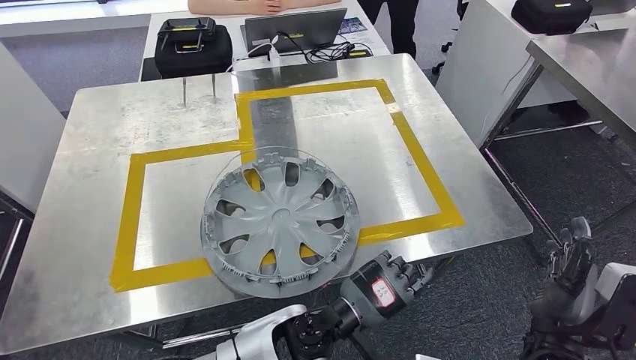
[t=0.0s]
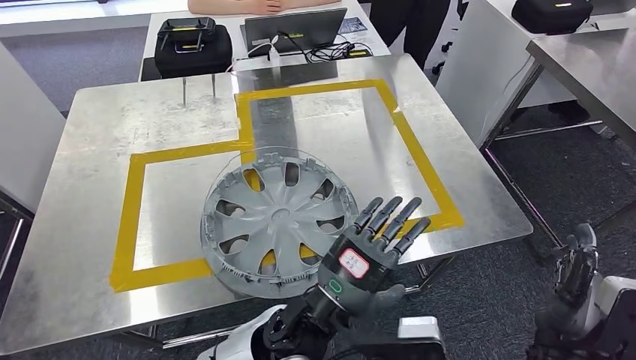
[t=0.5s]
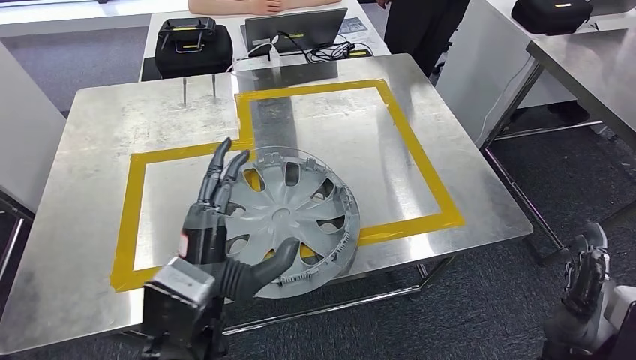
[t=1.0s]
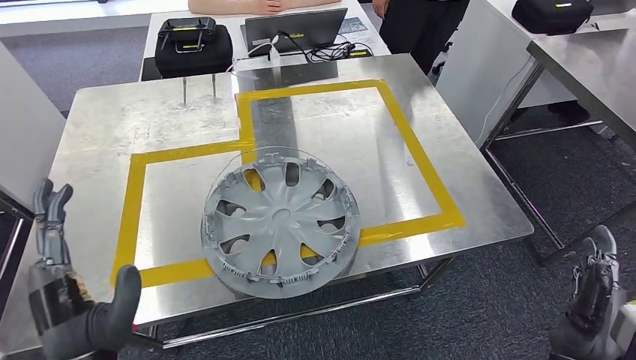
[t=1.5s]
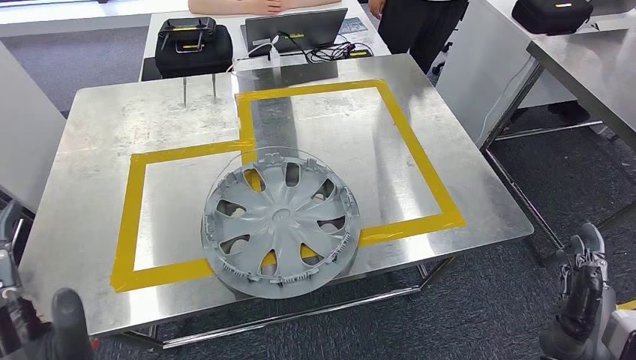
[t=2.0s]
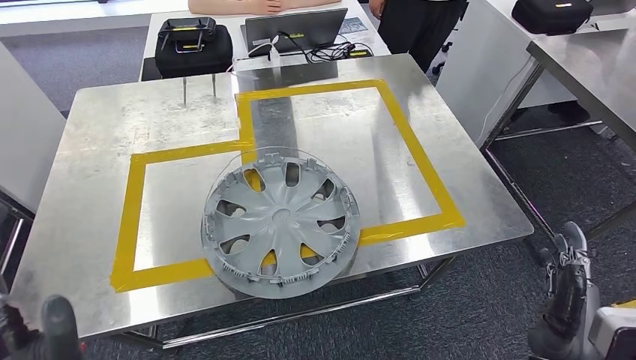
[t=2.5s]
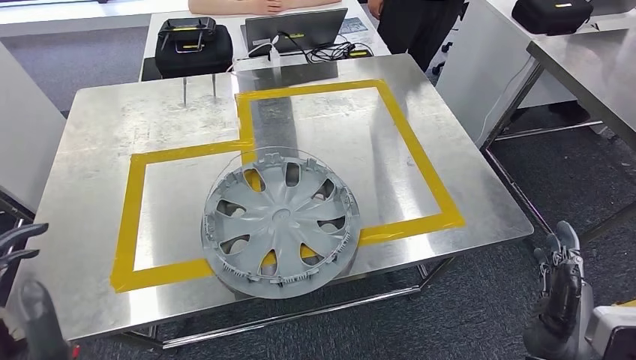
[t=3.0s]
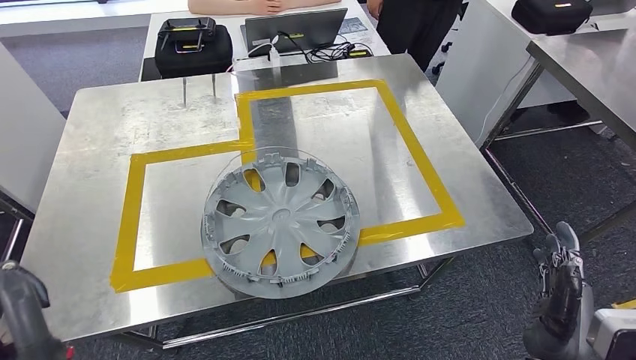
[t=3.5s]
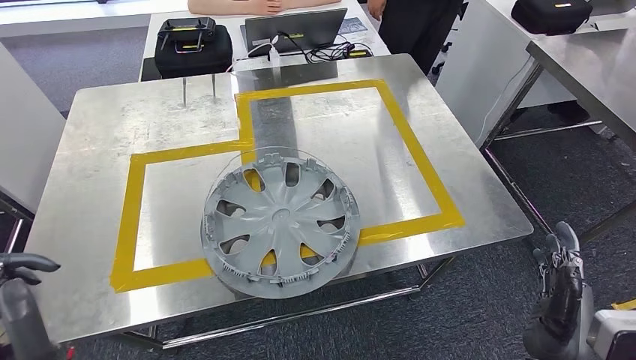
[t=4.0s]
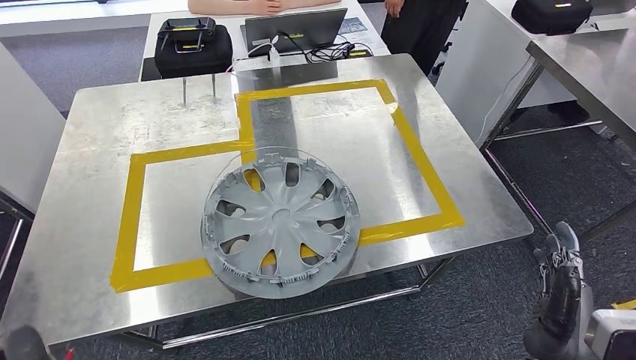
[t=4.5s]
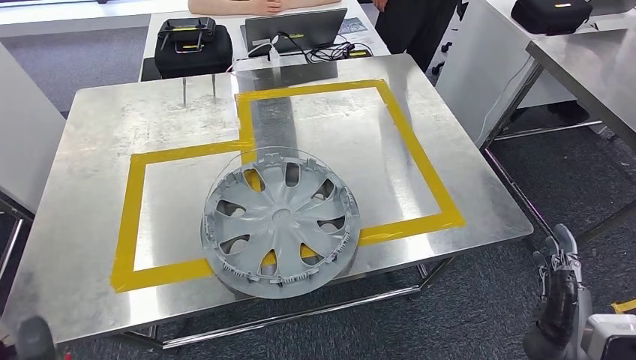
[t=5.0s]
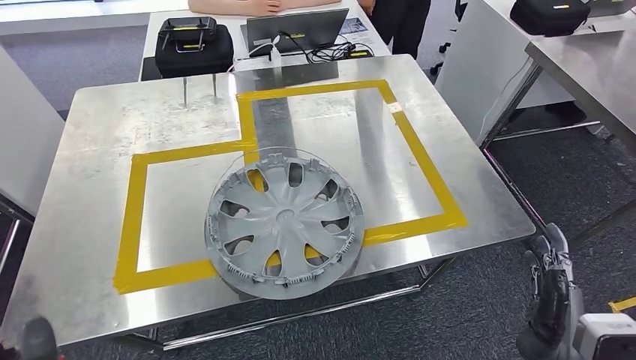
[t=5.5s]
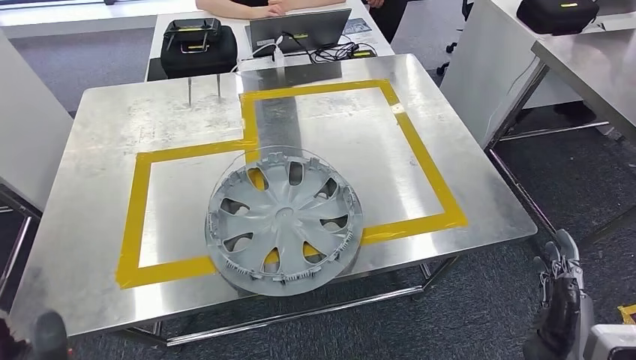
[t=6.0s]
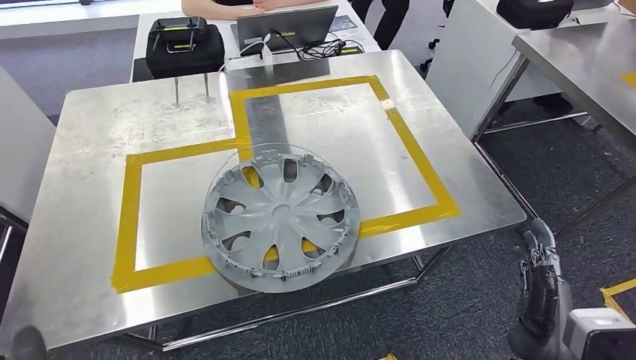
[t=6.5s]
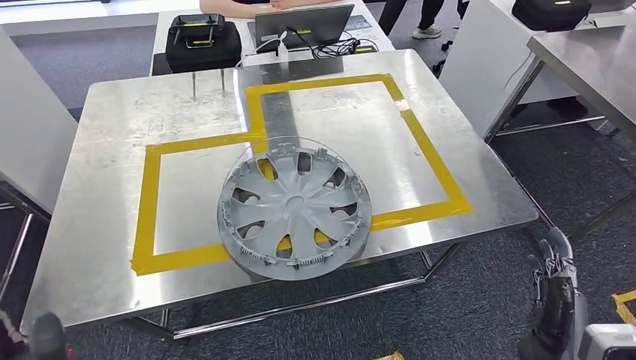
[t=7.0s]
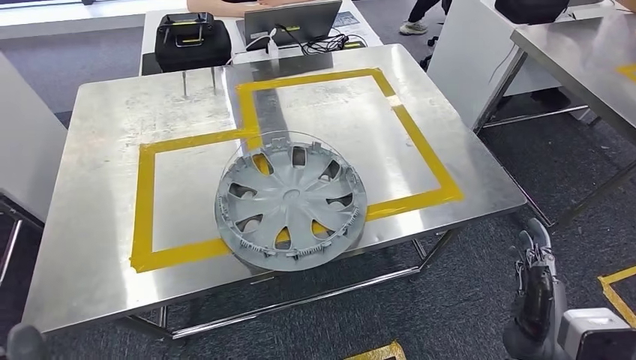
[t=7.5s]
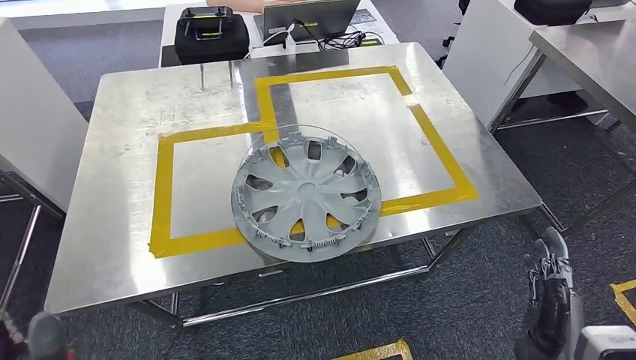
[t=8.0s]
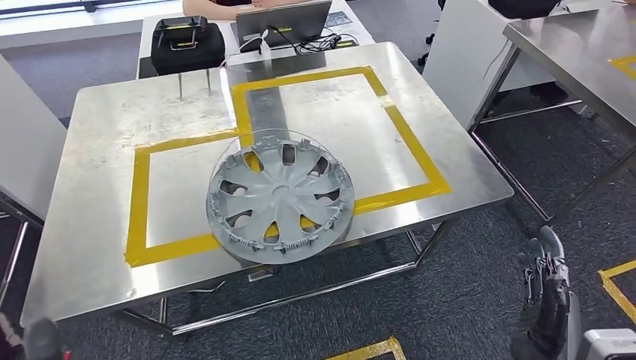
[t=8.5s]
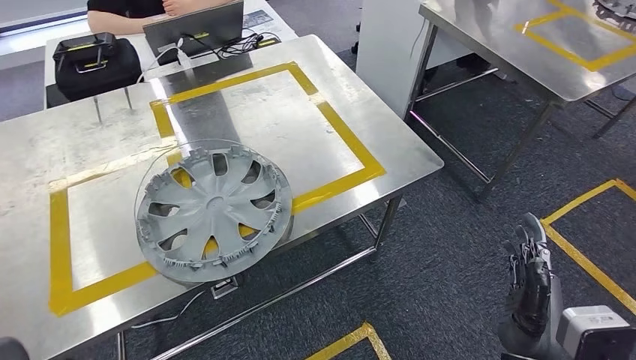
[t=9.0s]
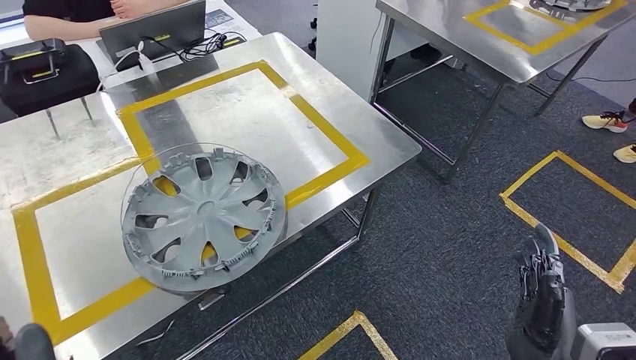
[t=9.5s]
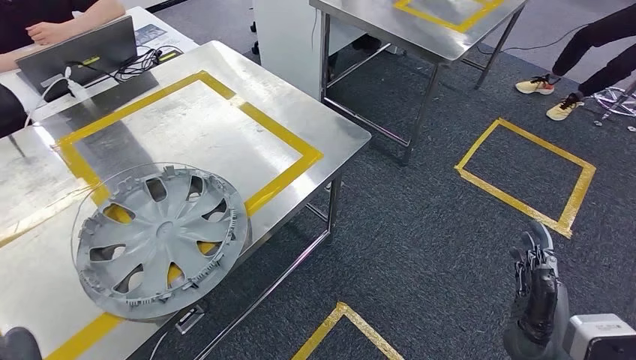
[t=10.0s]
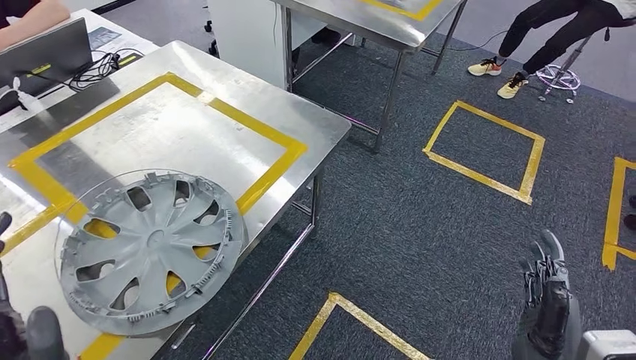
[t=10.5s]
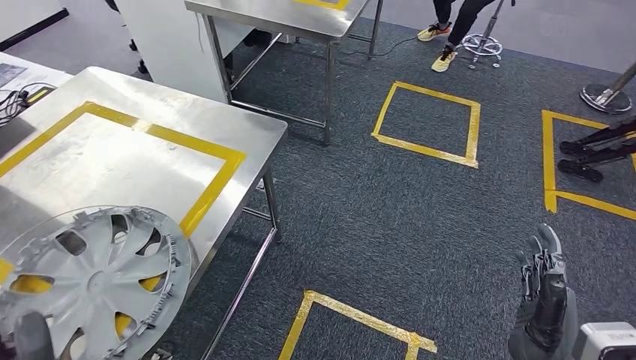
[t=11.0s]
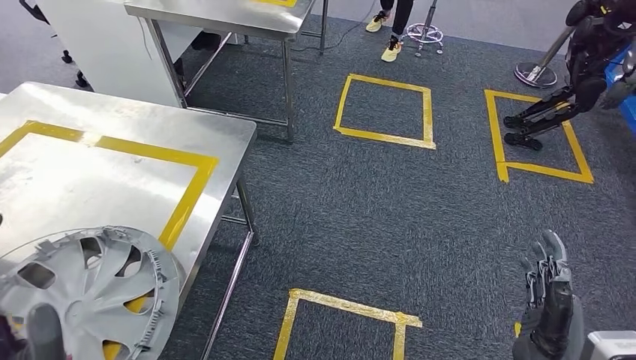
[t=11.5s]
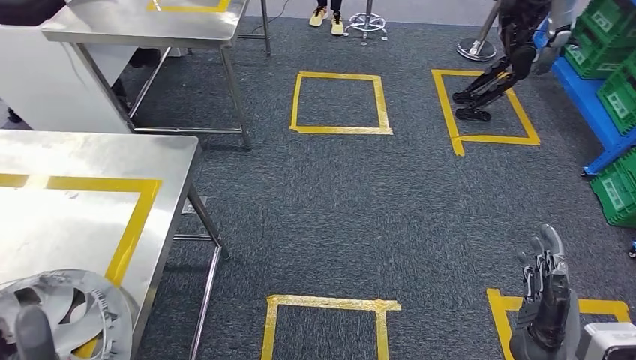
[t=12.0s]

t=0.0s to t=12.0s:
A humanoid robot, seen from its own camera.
t=0.0s to t=2.0s: The left hand moves to the left and backward, about 25 cm, while the right hand is displaced backward by roughly 5 cm.
t=2.0s to t=6.0s: The hands stay close to where they were, moving slightly.

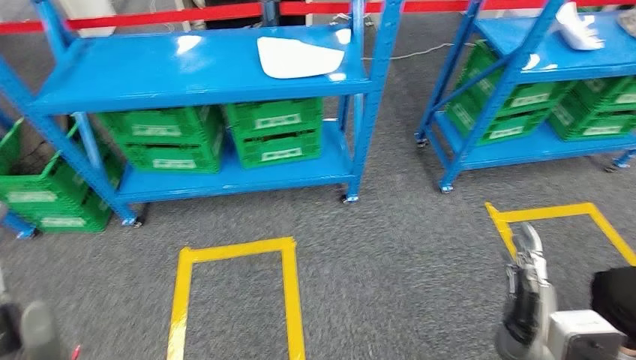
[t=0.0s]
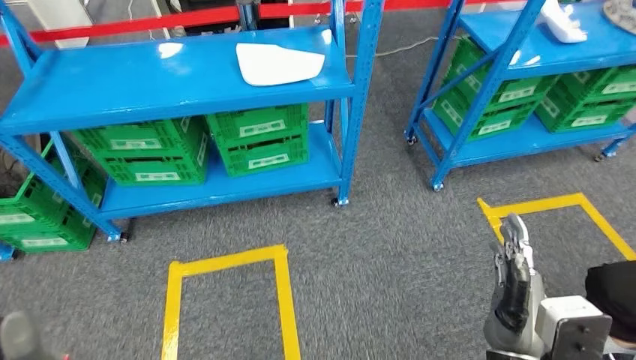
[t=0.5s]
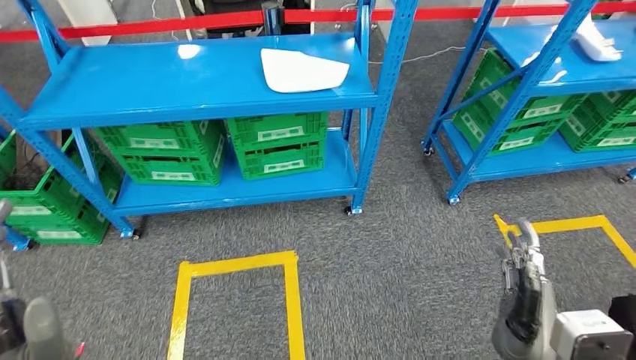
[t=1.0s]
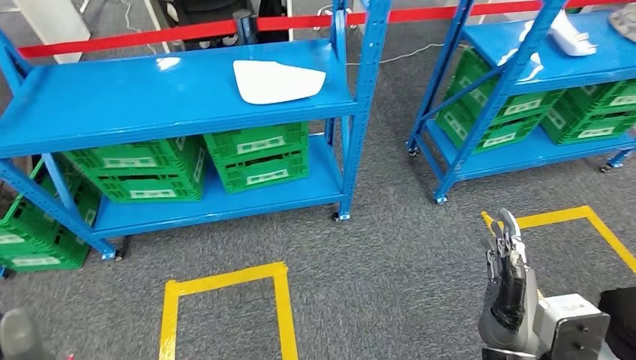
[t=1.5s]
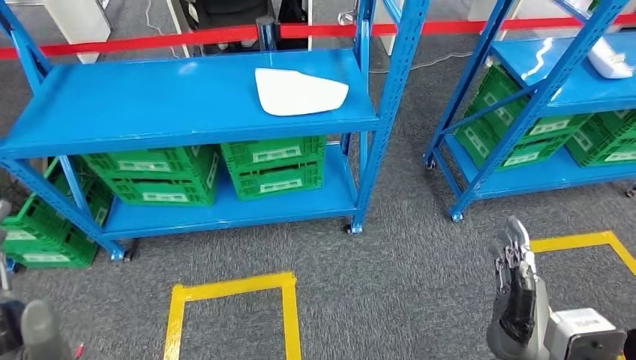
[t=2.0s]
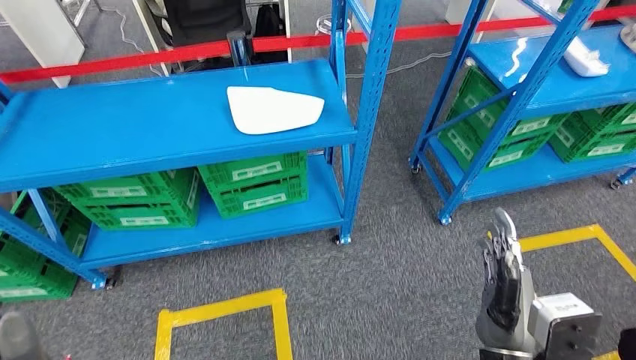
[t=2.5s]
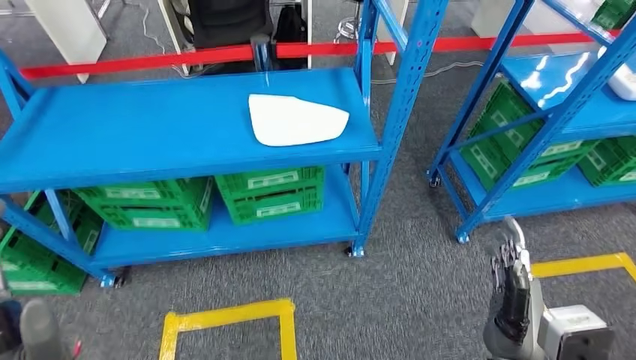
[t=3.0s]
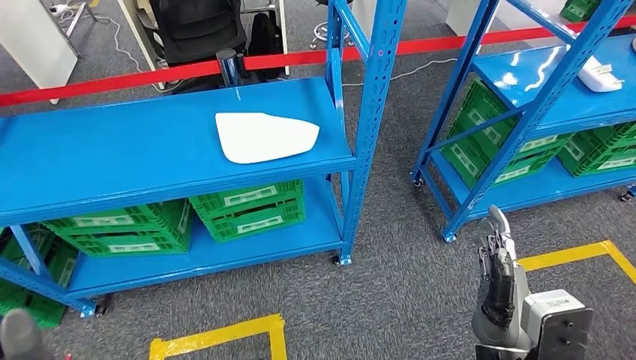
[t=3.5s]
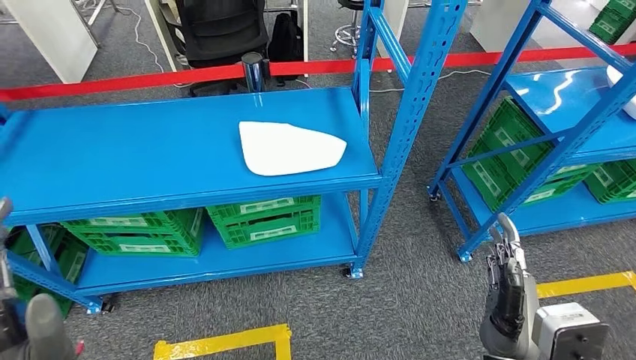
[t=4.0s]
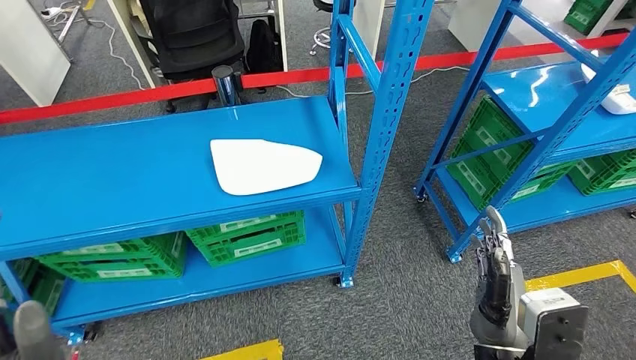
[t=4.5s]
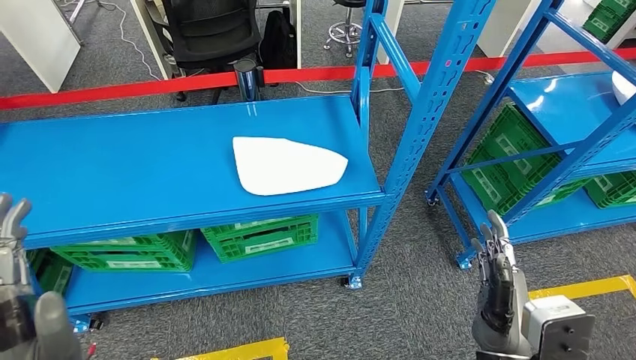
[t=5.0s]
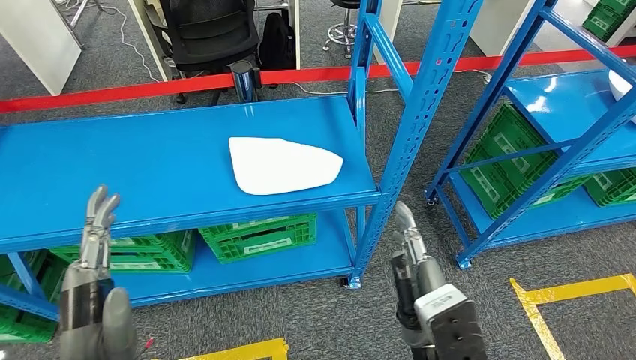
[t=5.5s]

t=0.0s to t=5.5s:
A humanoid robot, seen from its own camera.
Step, t=0.0s to t=5.5s: Return to the initial position at the workbench.

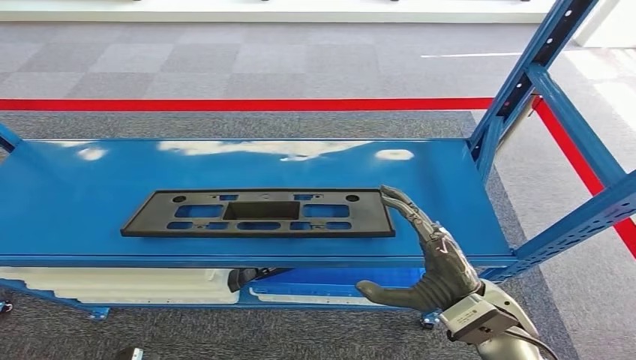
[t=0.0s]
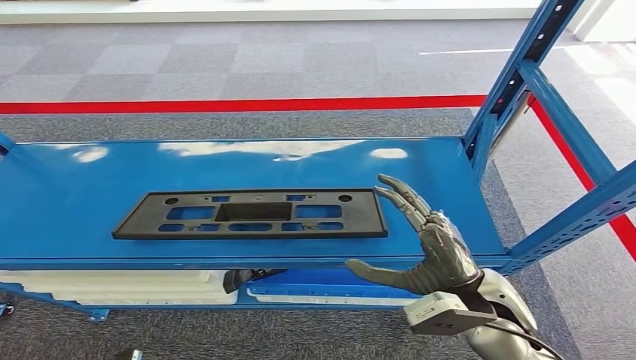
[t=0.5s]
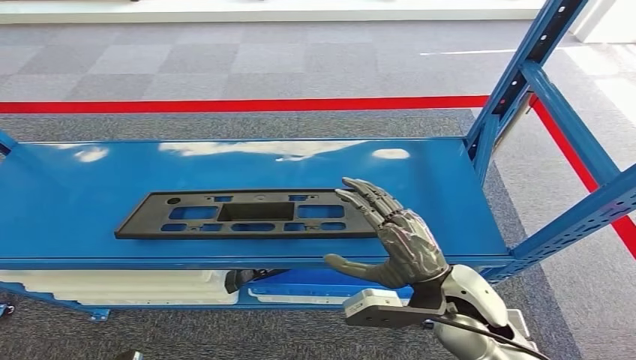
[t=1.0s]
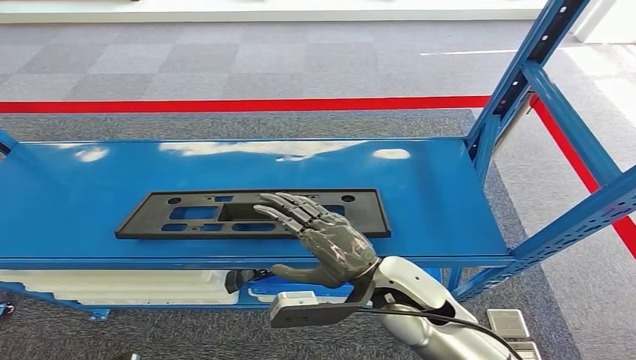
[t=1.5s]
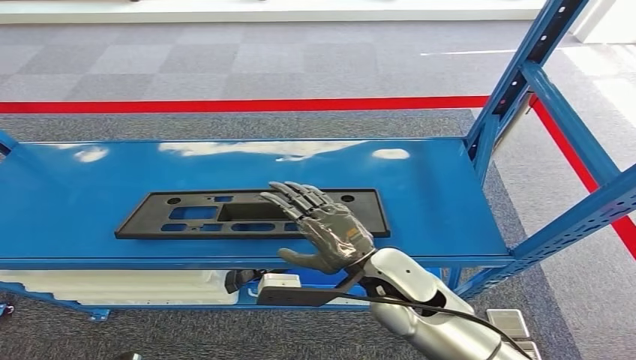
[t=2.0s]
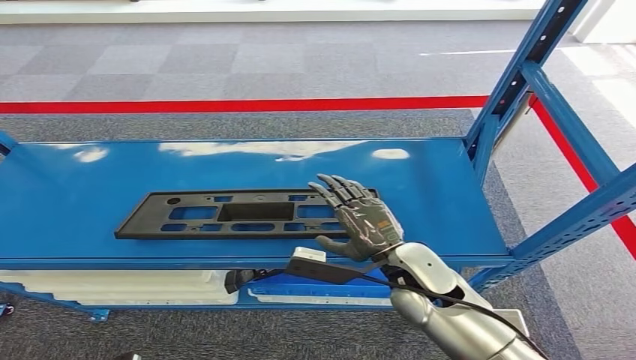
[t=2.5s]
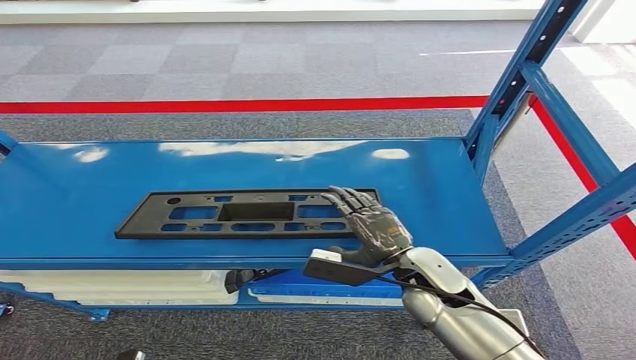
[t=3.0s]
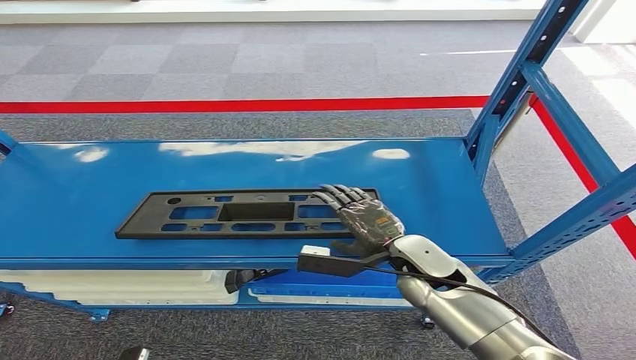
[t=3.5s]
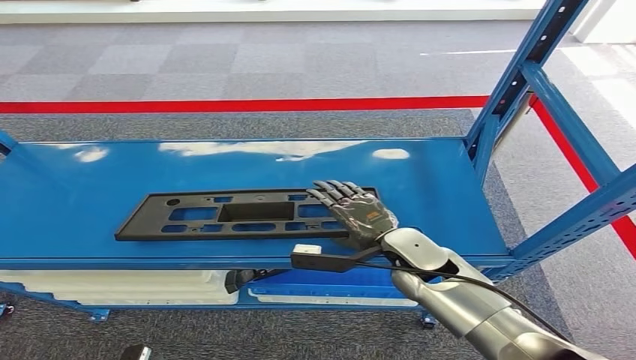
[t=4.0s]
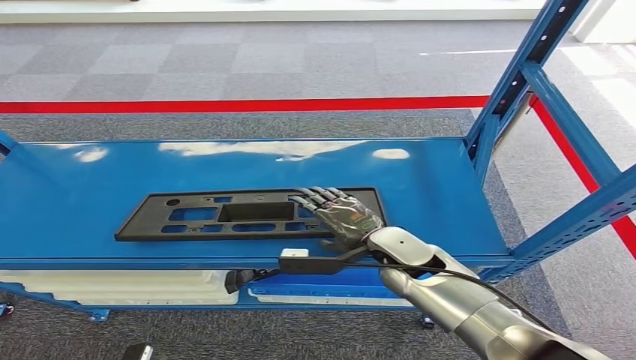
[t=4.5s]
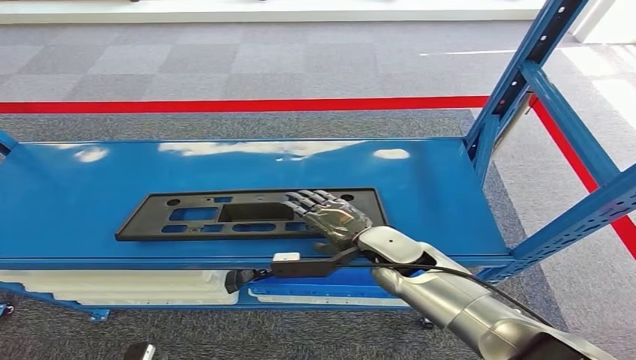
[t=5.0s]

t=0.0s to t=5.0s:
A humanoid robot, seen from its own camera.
t=0.0s to t=2.5s: The right hand moves to the left and forward, about 10 cm.
t=2.5s to t=5.0s: The right hand shifts by roughly 5 cm.
